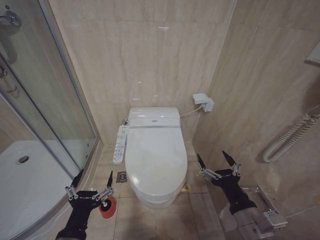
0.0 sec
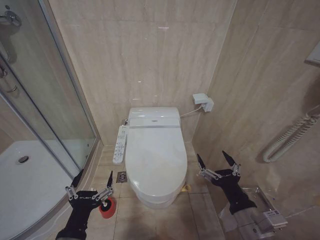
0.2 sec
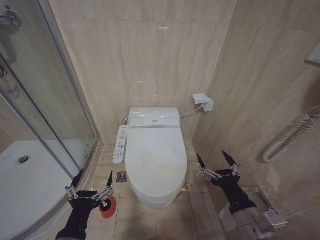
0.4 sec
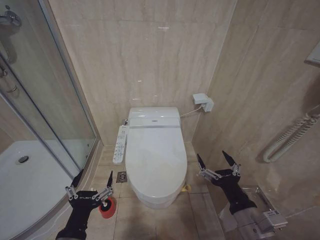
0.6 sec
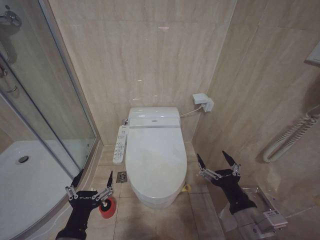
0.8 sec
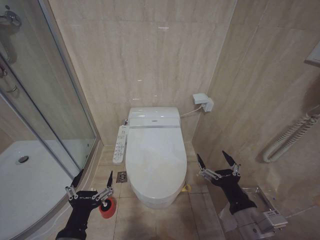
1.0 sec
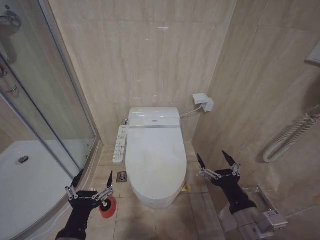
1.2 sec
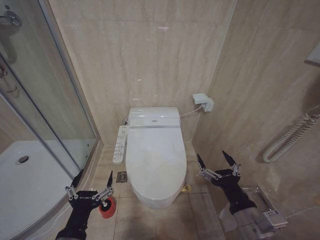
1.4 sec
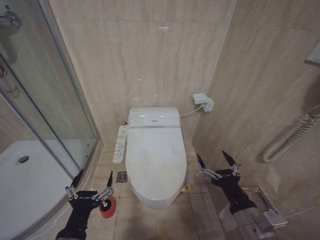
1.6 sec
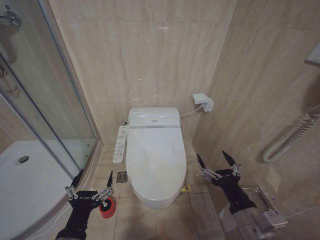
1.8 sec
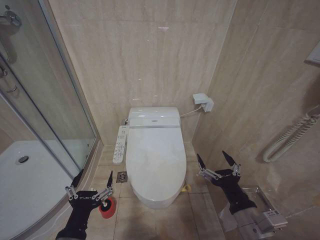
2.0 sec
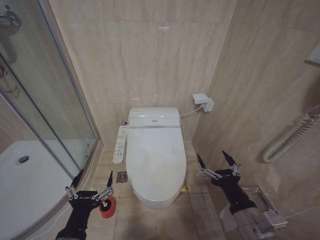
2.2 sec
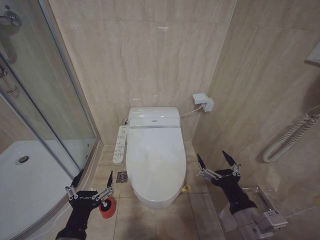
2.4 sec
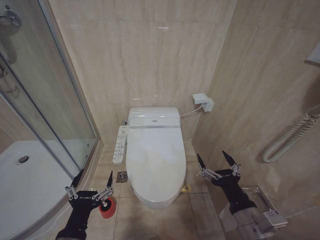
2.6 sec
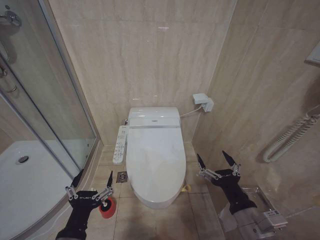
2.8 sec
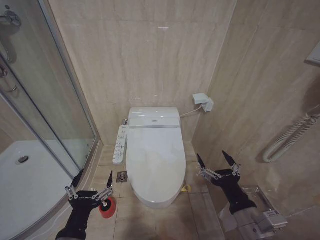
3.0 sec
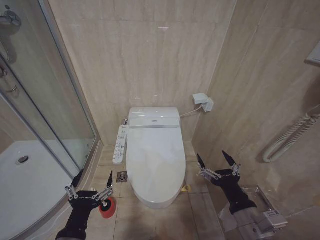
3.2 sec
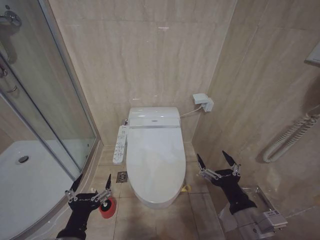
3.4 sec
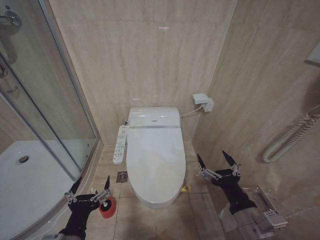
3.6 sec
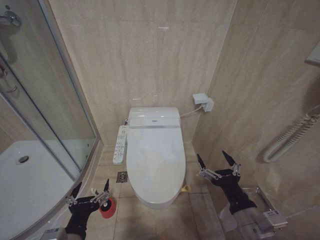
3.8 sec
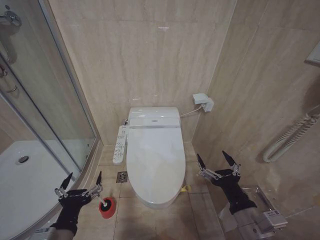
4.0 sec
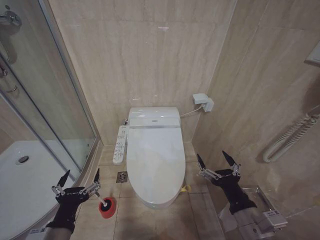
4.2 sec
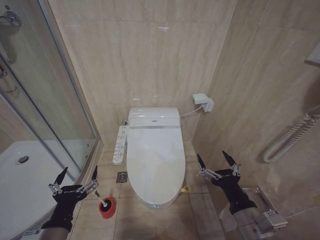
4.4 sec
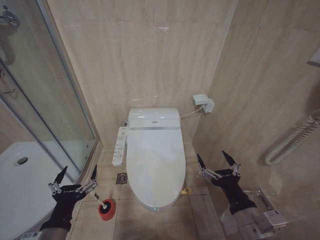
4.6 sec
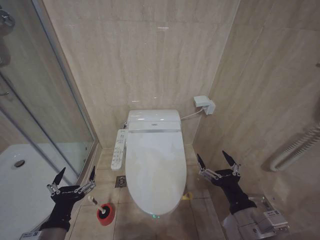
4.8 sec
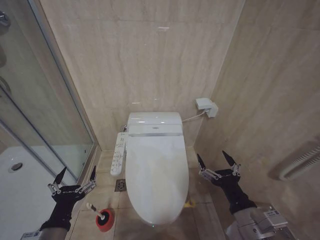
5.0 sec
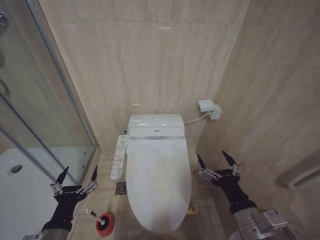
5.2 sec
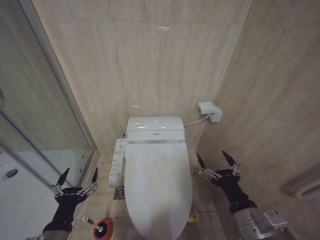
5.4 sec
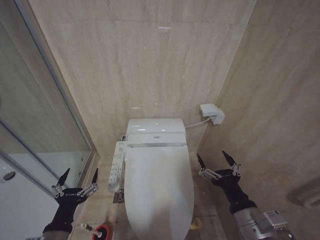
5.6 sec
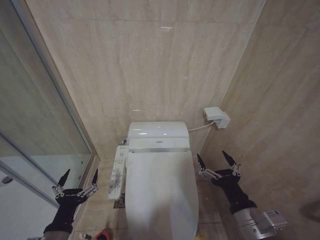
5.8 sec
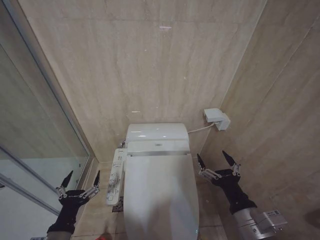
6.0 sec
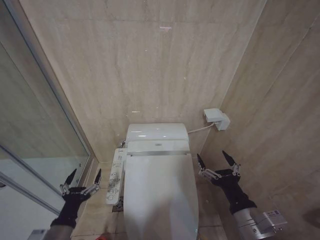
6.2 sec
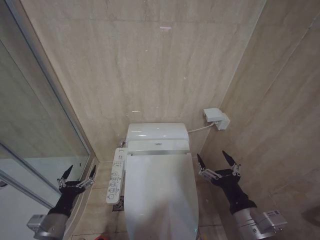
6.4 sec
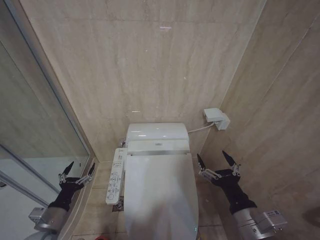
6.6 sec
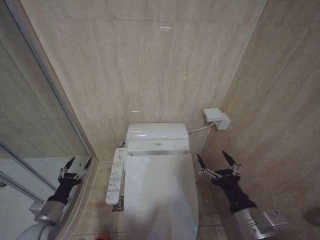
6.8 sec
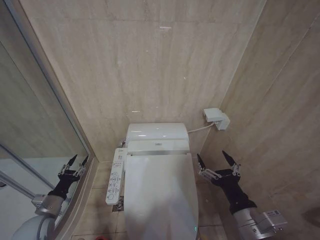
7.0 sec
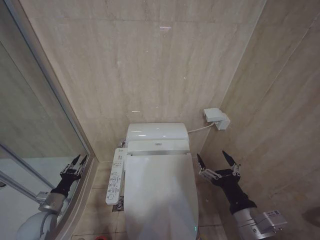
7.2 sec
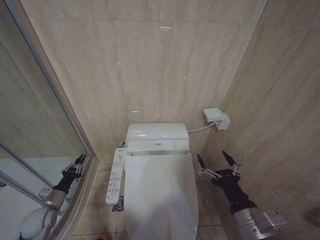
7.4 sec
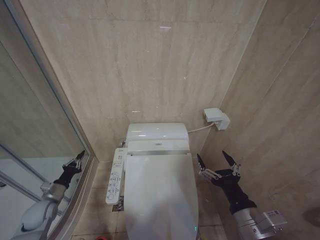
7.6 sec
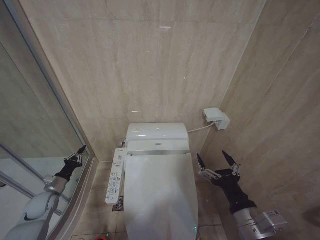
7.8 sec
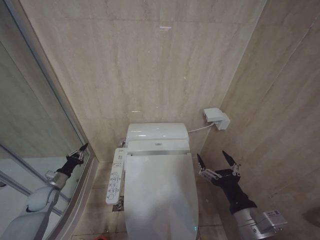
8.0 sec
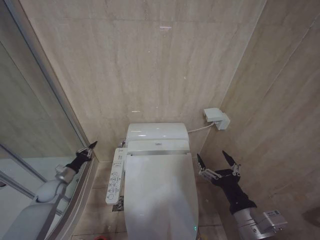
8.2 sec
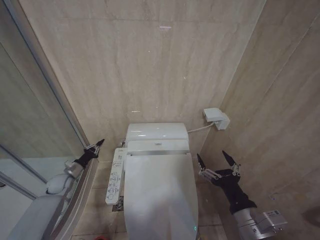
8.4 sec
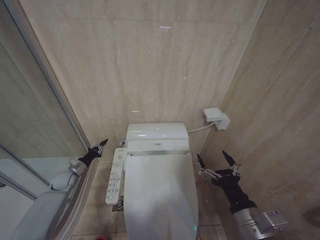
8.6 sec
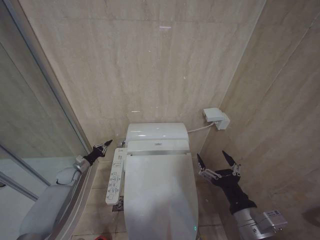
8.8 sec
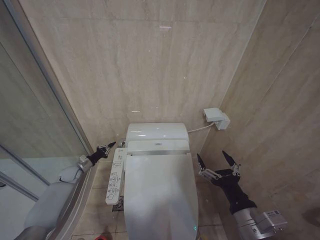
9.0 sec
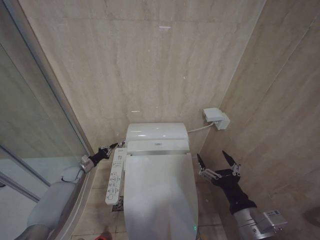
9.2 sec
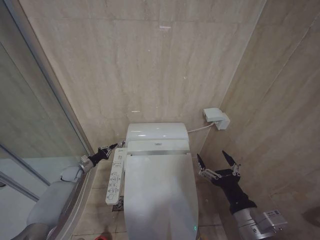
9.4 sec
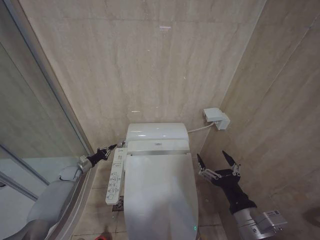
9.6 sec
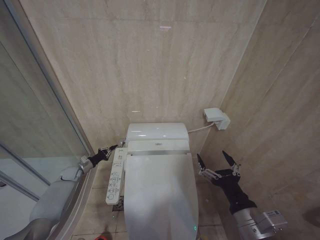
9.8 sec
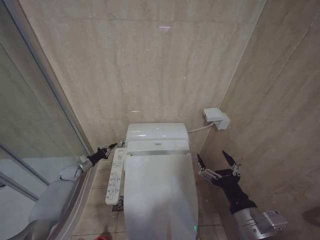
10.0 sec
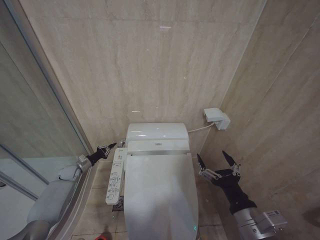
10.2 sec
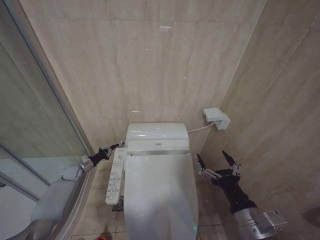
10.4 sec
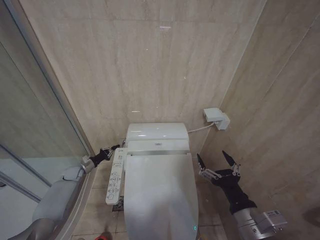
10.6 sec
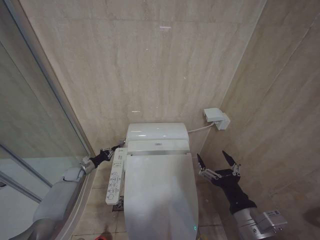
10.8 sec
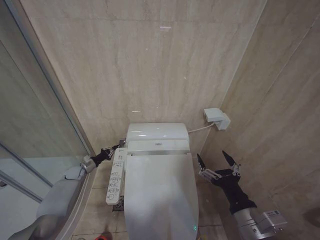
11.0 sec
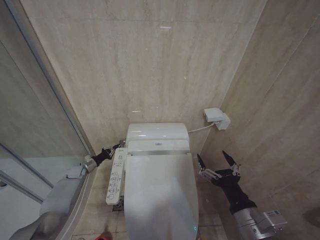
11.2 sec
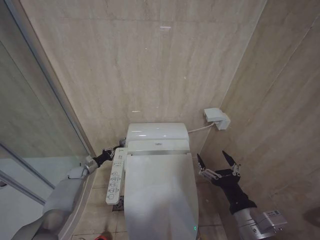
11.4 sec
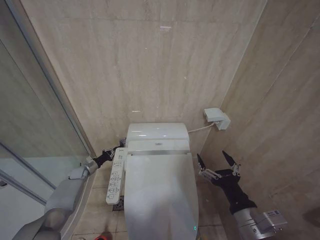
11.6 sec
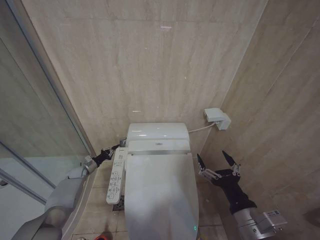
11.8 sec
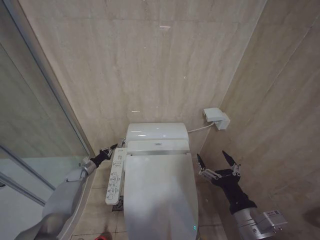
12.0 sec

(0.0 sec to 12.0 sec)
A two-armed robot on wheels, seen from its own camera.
Task of the whole recording: Open the toilet lid, clean the toilet bowl with a toilet brush, close the toilet lid, and flush.
0.0 sec - 3.0 sec: Both grippers stay put.
3.0 sec - 4.4 sec: The grippers stay close to where they were, moving slightly.
4.4 sec - 6.0 sec: The left gripper shifts approximately 5 cm downward.
6.0 sec - 7.6 sec: The left gripper shifts some 25 cm forward, to the left and downward, and closes.
7.6 sec - 9.0 sec: The left gripper travels forward by approximately 15 cm.
10.4 sec - 12.0 sec: The grippers move only a little.

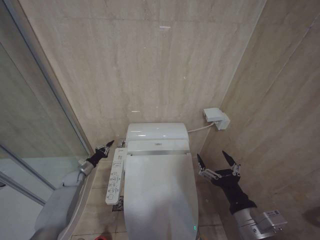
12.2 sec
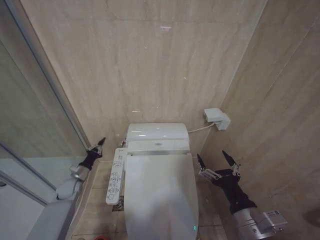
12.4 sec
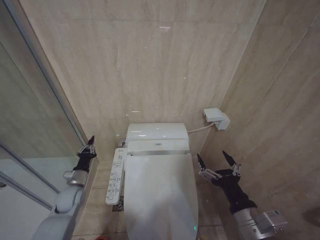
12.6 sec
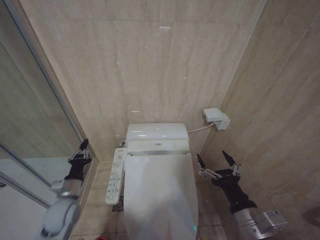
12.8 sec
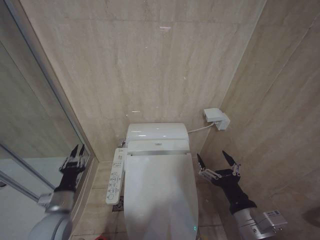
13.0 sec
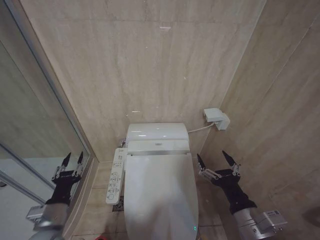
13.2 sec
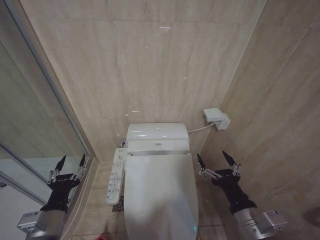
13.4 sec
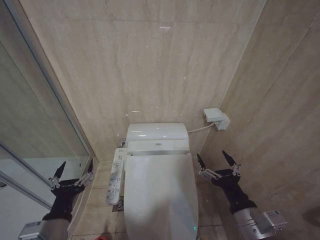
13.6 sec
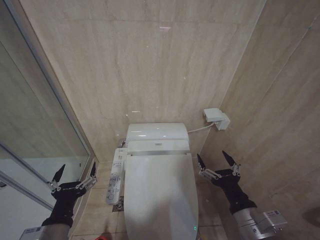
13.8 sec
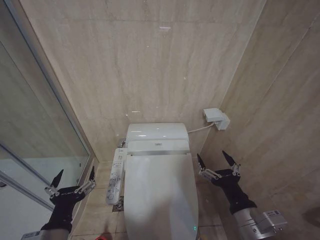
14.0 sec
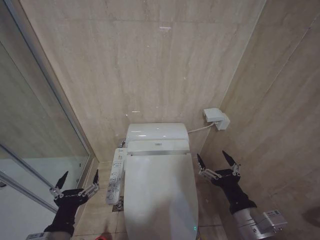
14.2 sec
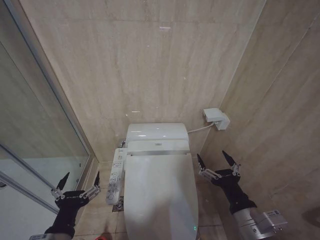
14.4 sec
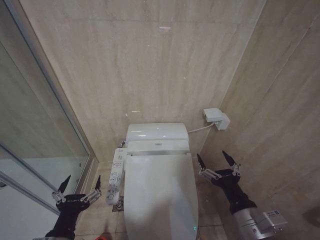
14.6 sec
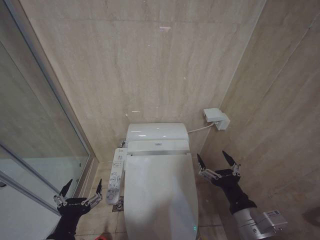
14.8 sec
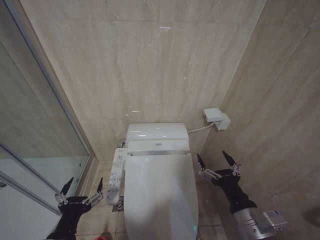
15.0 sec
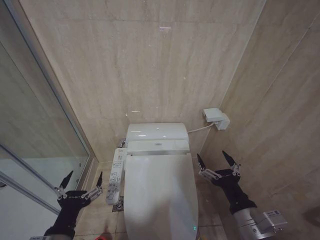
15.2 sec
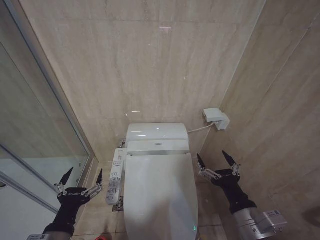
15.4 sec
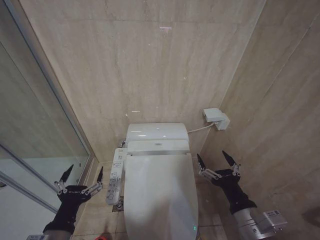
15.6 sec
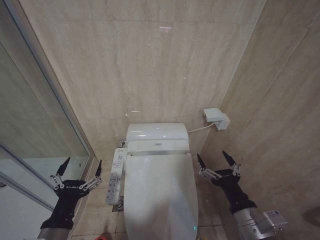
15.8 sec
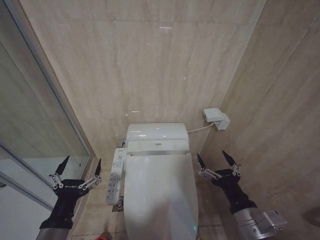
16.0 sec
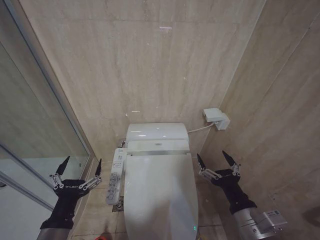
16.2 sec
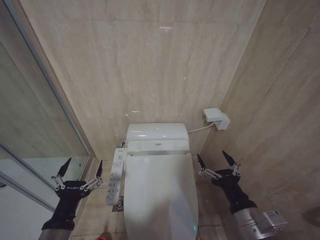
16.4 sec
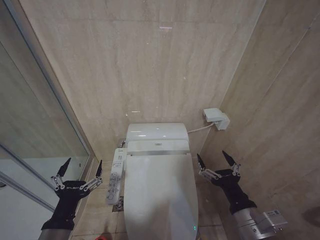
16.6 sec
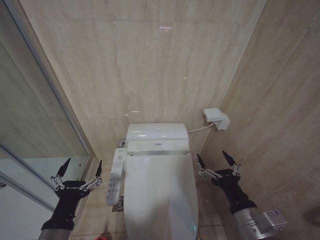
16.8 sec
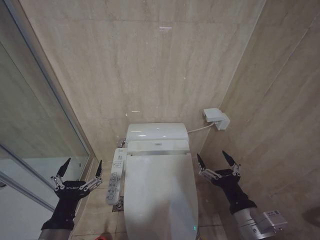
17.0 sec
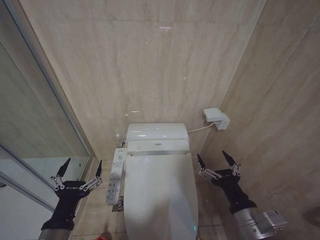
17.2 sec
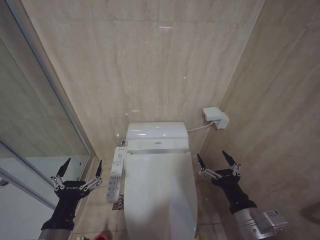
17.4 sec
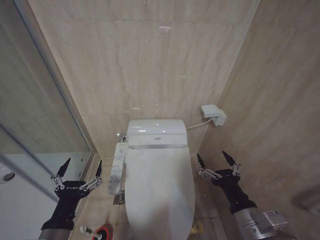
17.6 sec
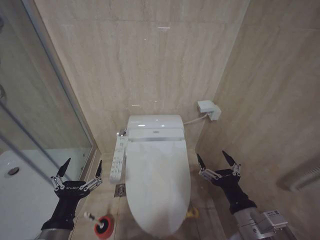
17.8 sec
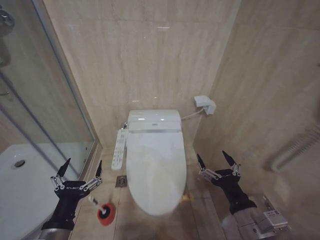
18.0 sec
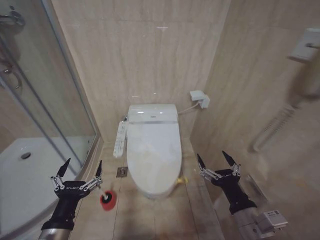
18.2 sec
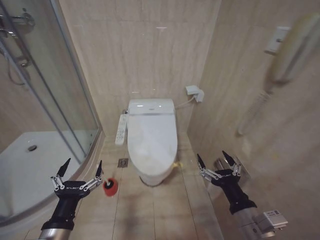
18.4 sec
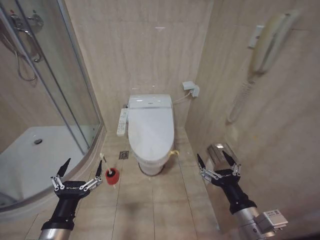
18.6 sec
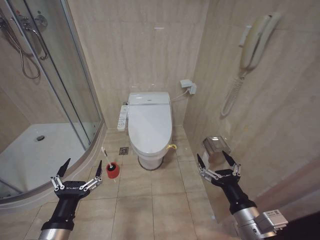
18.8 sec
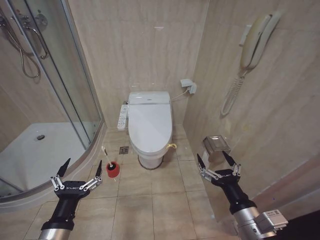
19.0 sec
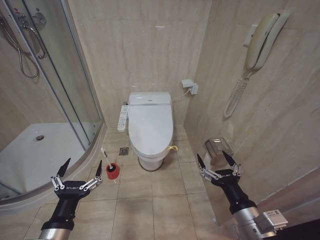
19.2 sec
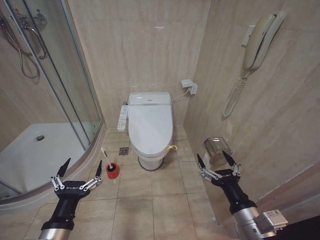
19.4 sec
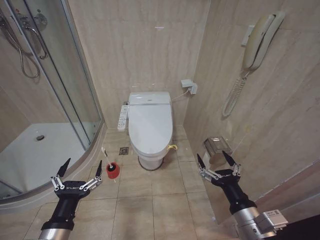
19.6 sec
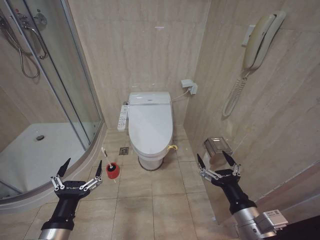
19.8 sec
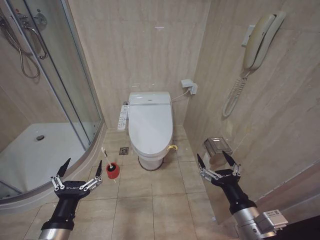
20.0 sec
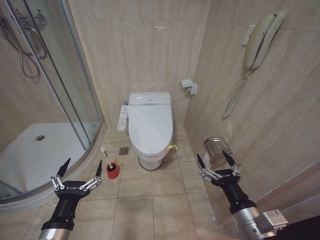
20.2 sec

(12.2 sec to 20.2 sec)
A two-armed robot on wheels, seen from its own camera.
Task of the whole recording: Open the toilet lid, clean the toilet bowl with a toilet brush, close the toilet lid, and flush.
12.2 sec - 13.8 sec: The left gripper goes roughly 40 cm backward, upward and to the right, and opens up.
13.8 sec - 17.0 sec: The grippers move only a little.
18.6 sec - 20.2 sec: Neither gripper changes place.

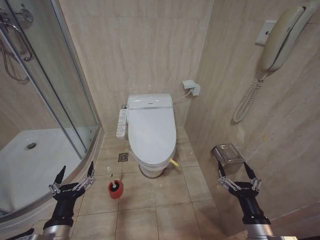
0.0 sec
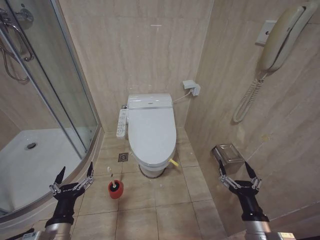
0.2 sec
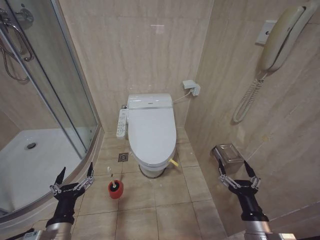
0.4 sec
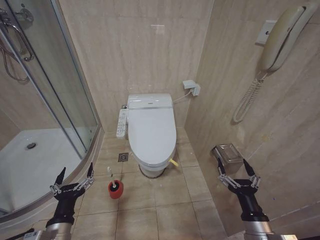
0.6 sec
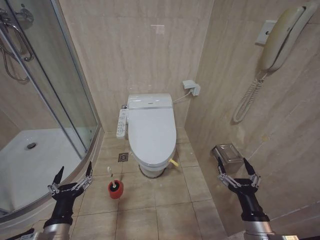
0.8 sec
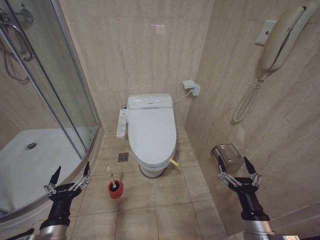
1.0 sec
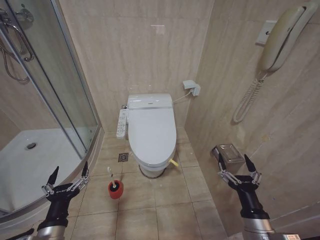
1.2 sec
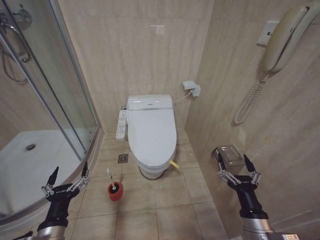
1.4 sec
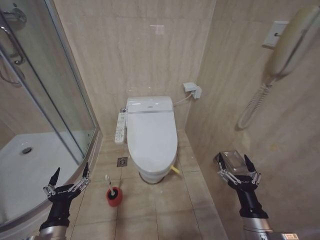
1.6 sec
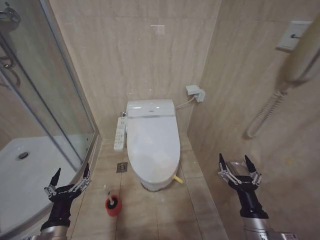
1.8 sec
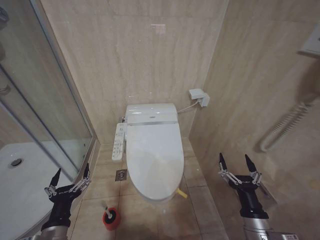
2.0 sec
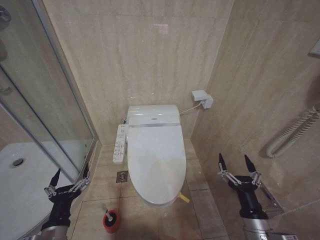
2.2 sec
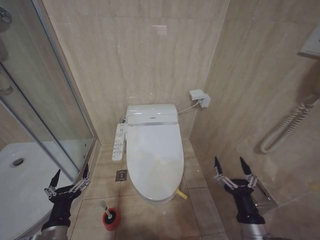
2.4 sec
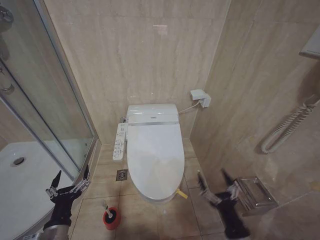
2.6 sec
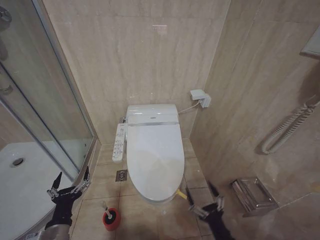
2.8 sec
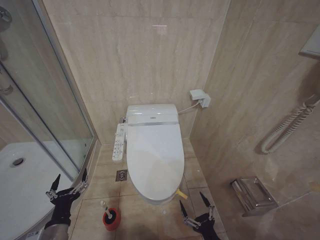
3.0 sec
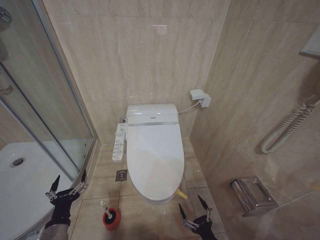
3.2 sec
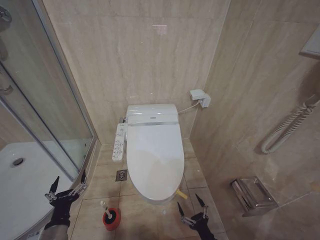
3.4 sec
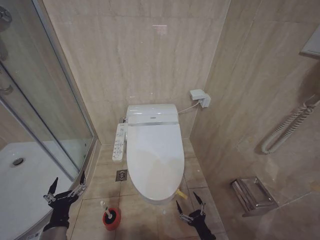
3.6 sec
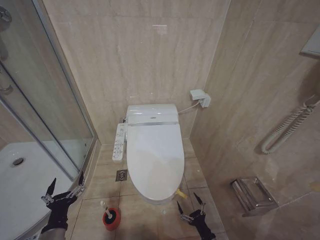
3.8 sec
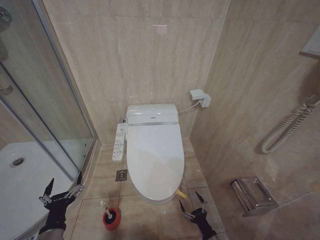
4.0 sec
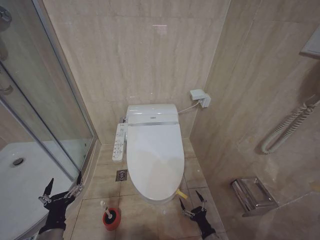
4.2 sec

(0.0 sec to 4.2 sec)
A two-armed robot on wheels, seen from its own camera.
Task of the whole recording: Open the toilet lid, clean the toilet bowl with a toilet brush, close the toilet lid, and flush.
1.4 sec - 2.8 sec: The right gripper travels downward by approximately 10 cm.
2.8 sec - 4.2 sec: The right gripper travels downward by about 20 cm.
